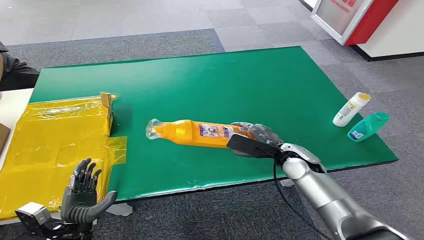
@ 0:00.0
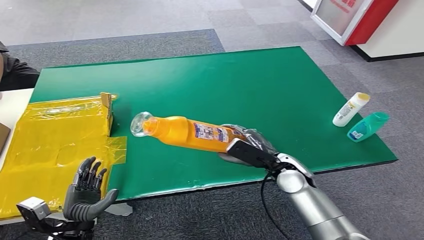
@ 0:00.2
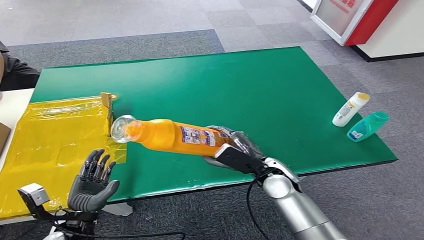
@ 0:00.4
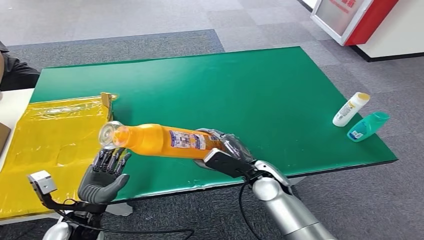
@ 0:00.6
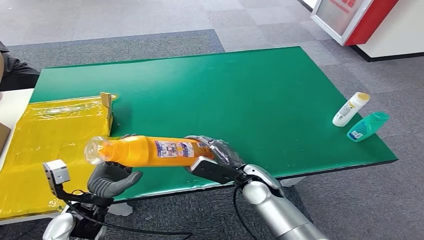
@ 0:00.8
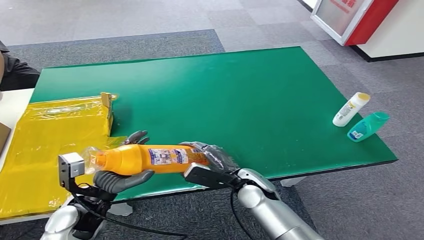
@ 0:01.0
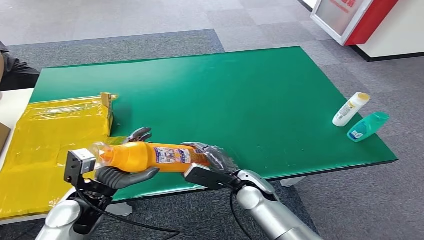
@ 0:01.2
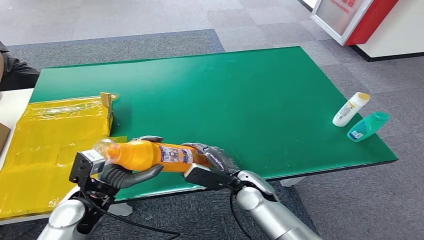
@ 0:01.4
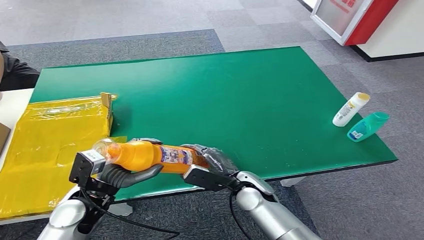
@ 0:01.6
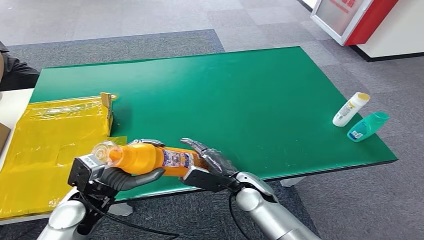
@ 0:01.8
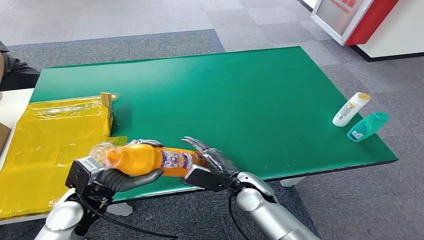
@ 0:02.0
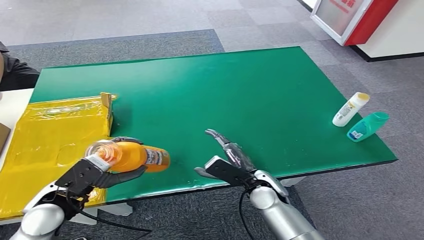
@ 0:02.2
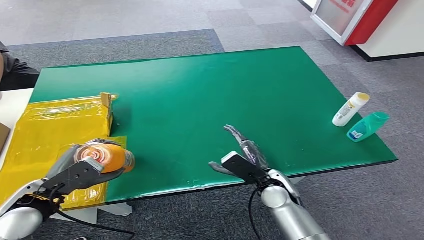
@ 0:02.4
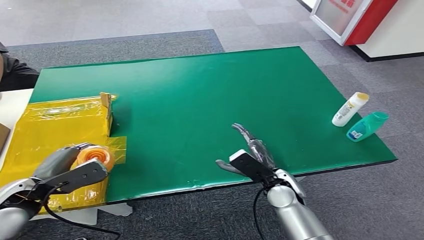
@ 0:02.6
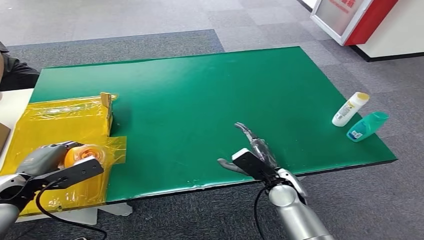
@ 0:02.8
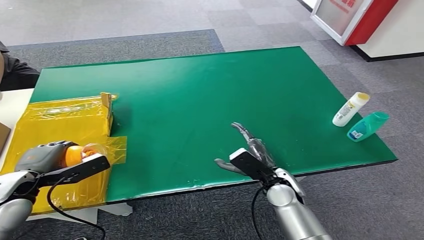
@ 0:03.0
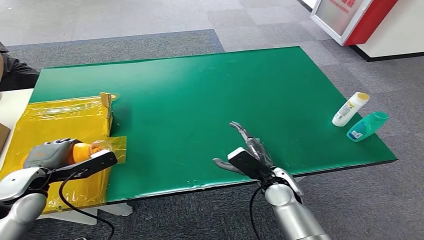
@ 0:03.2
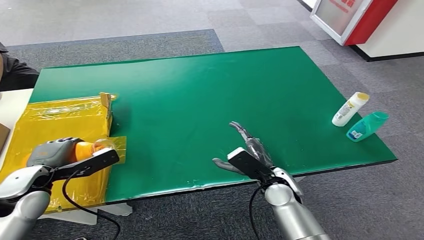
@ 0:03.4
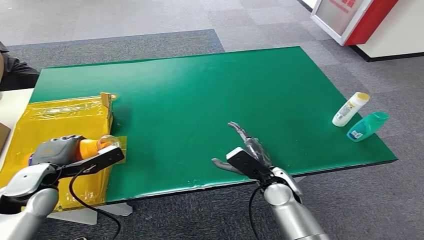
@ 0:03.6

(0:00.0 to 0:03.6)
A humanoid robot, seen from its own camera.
Step, 0:00.0 - 0:01.6: Pick up the bottle from the table.
Step, 0:01.8 - 0:03.6: Turn the bottle to the front side.
0:01.8 - 0:03.6: The left hand moves to the left, about 10 cm; the right hand heads to the right, covering about 5 cm.

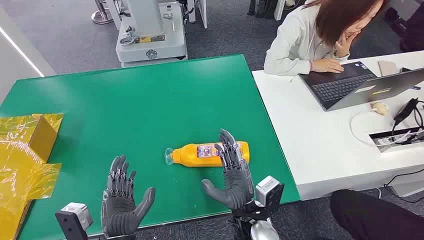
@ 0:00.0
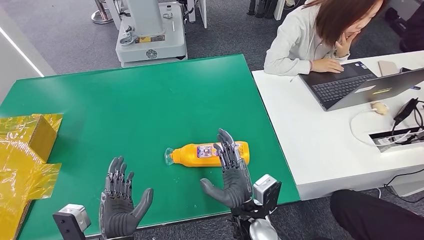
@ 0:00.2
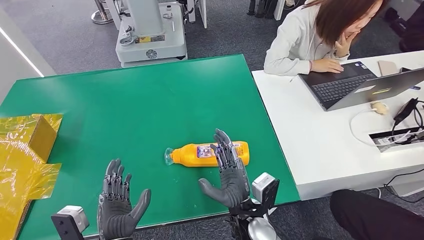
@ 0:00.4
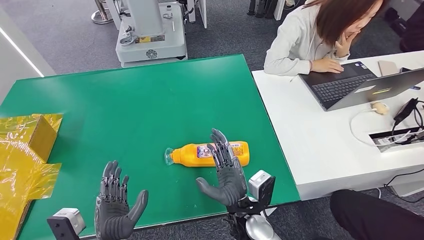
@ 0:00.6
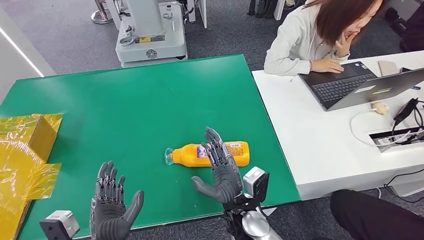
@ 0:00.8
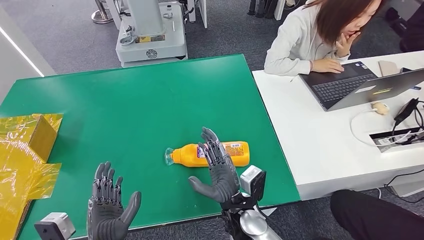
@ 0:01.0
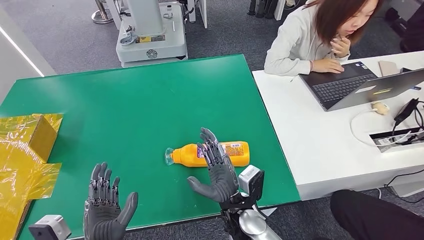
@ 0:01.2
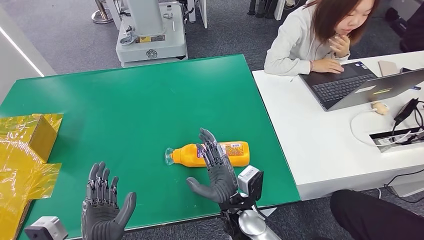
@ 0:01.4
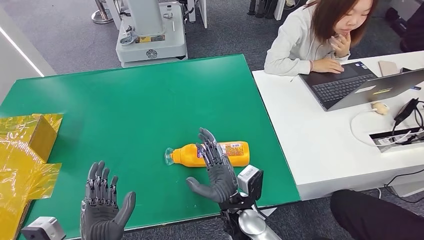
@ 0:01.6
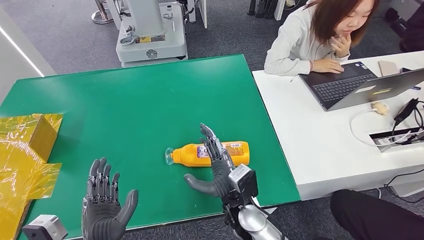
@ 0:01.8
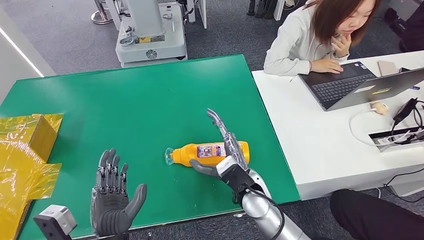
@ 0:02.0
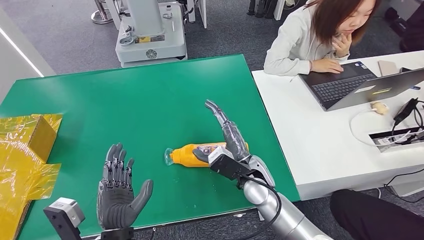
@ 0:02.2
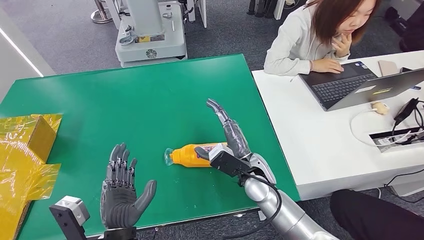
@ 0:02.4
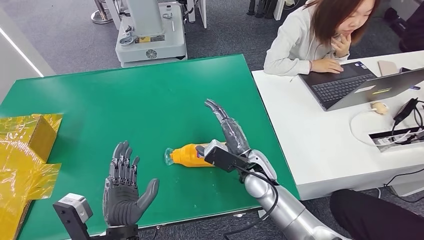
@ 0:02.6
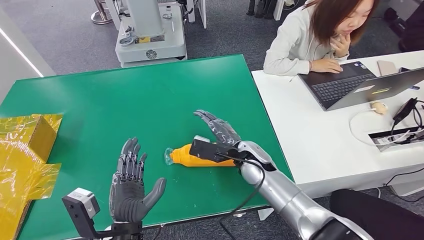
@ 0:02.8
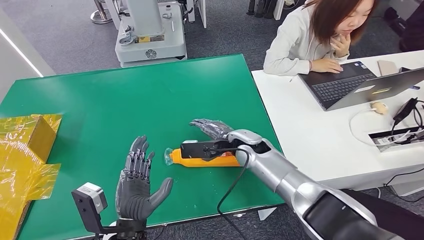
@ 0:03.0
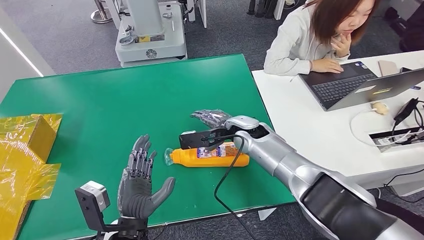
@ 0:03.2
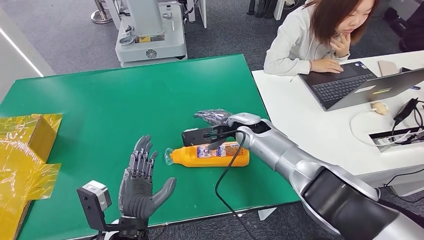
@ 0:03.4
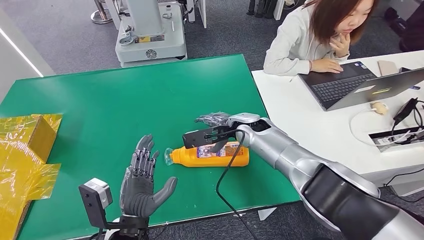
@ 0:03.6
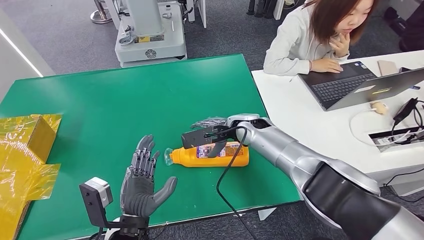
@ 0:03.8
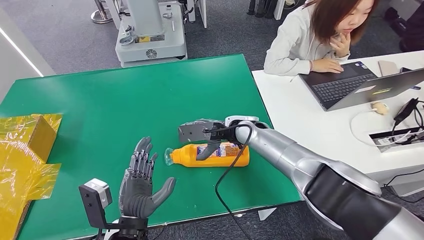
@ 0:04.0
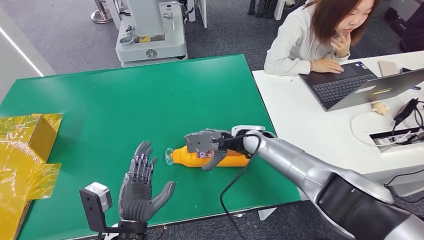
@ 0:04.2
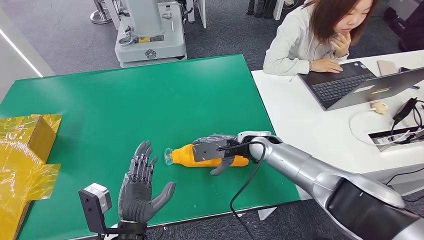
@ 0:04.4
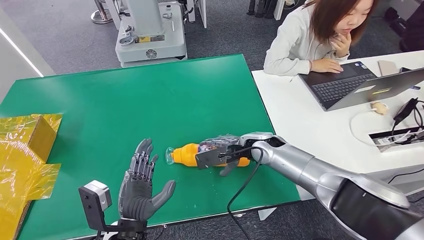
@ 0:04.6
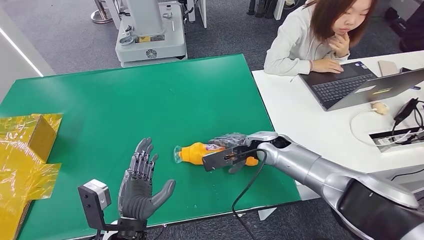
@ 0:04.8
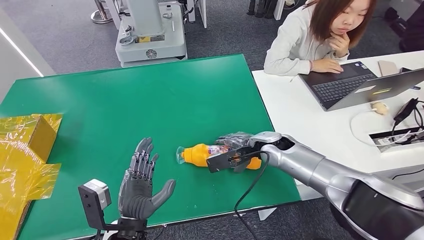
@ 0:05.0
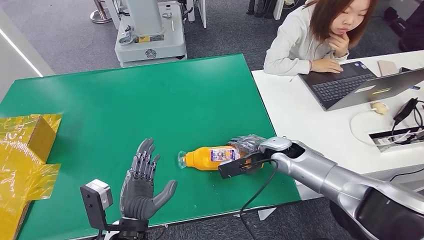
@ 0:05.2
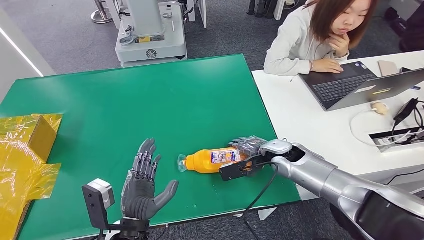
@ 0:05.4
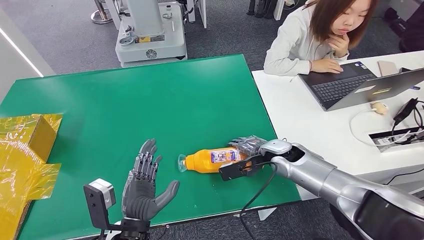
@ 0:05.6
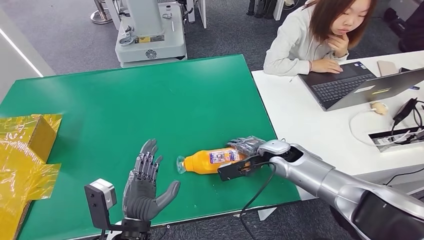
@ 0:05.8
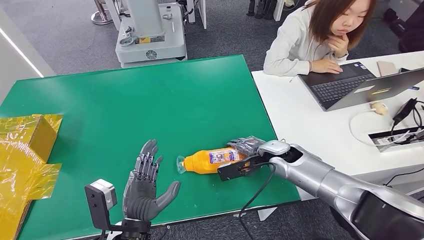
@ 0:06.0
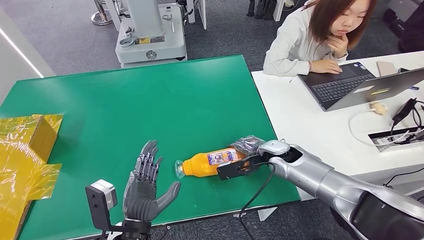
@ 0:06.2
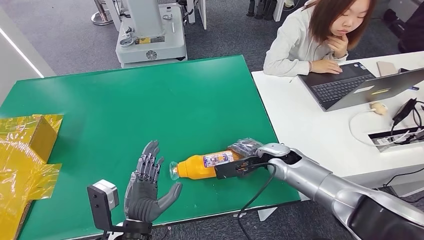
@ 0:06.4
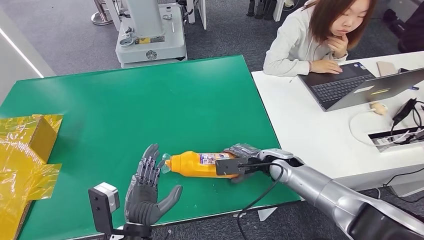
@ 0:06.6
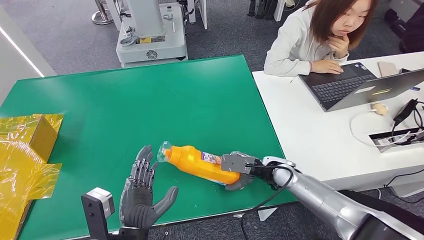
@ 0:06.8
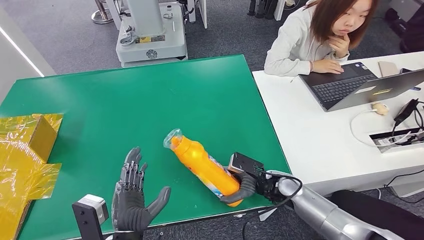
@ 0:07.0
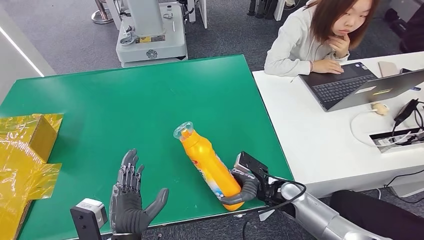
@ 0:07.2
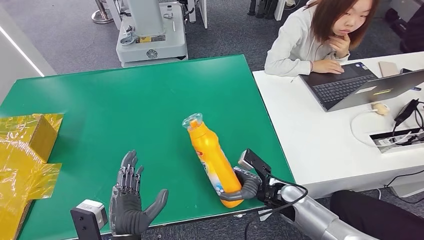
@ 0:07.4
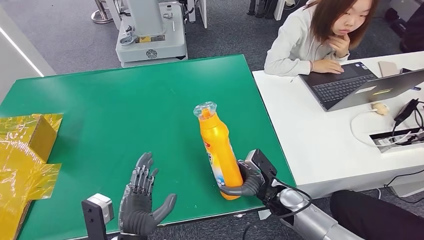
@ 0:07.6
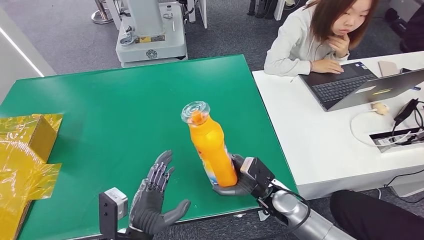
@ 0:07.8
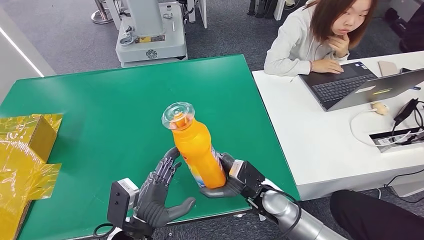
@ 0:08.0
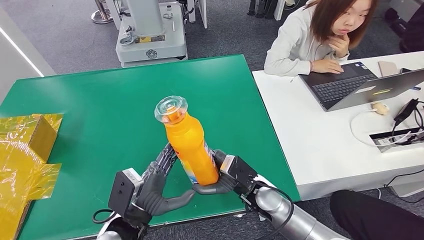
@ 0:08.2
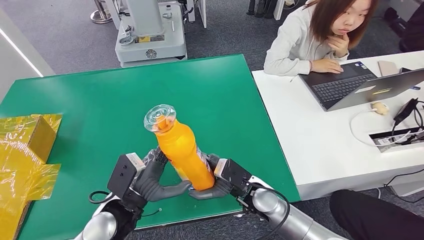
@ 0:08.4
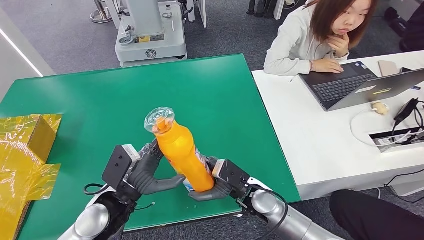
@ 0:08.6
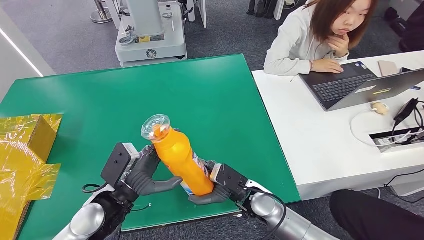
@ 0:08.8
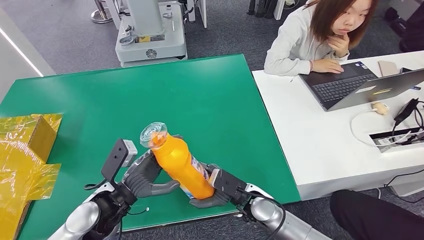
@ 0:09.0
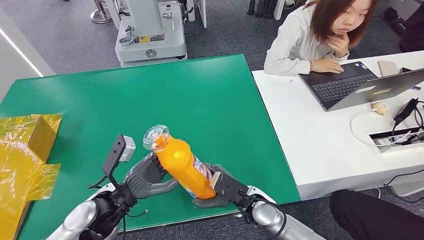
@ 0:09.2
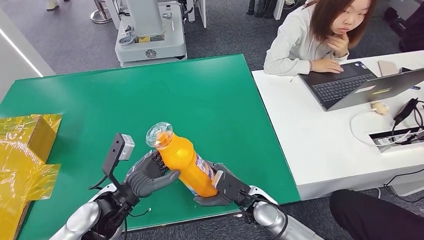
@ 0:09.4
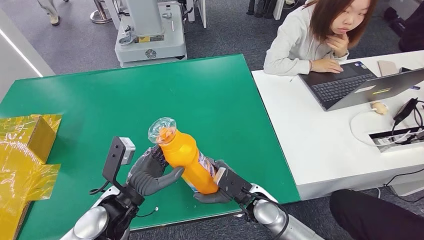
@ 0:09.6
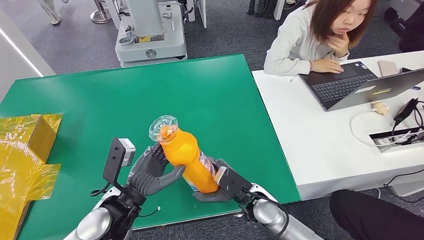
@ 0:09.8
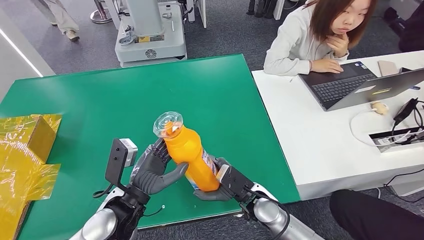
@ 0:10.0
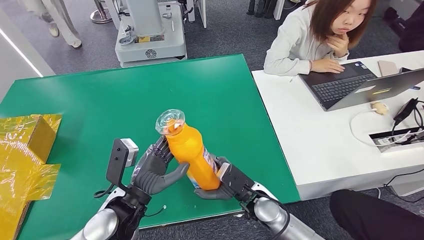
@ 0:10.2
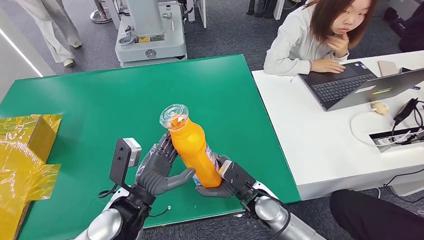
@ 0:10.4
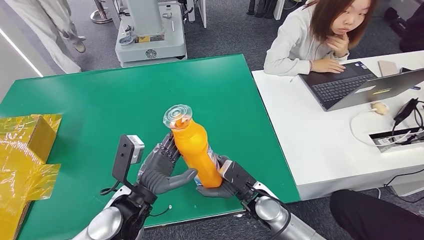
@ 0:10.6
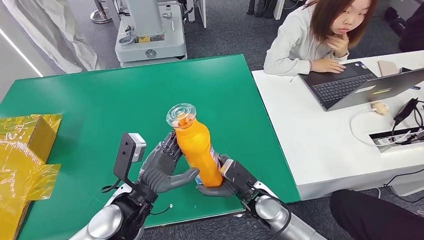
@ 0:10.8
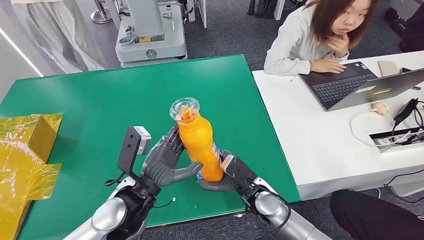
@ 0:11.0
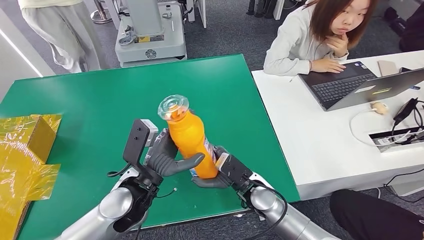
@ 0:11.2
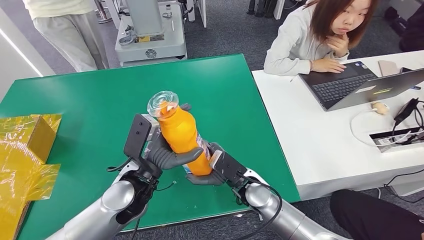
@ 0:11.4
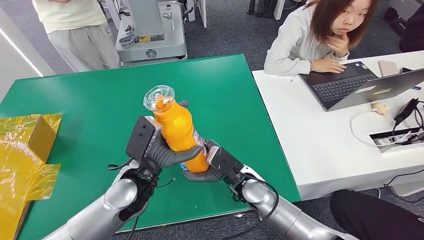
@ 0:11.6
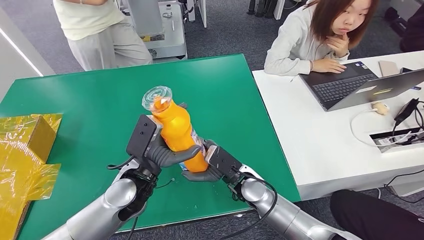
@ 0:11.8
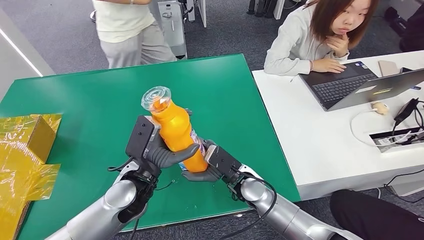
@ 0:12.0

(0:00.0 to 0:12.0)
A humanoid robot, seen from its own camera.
Step, 0:00.0 - 0:08.0: Pick up the bottle from the table.
0:01.6 - 0:03.0: The right hand goes some 15 cm forward. Meanwhile the left hand shifts about 5 cm forward.
0:04.4 - 0:06.0: The right hand heads to the right, covering roughly 5 cm.
0:06.0 - 0:07.6: The right hand moves backward and downward, approximately 15 cm.
0:07.6 - 0:09.0: The right hand is displaced to the left by about 10 cm; the left hand shifts approximately 15 cm forward, upward and to the left.
0:09.0 - 0:10.4: The left hand travels to the right by some 5 cm.
0:10.4 - 0:12.0: The right hand moves some 5 cm.

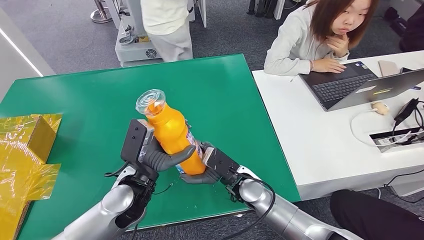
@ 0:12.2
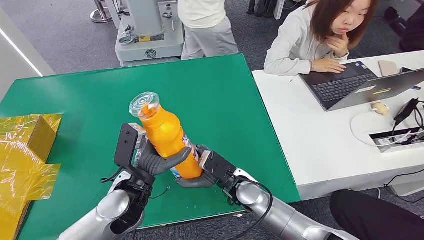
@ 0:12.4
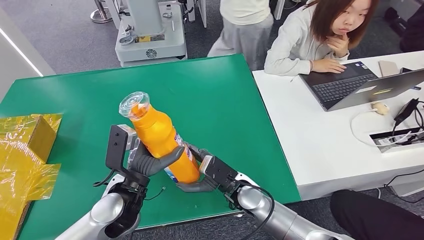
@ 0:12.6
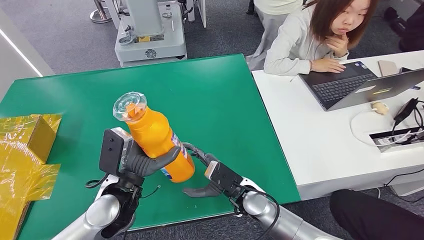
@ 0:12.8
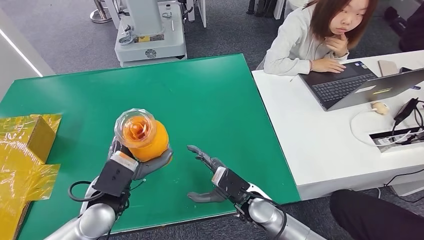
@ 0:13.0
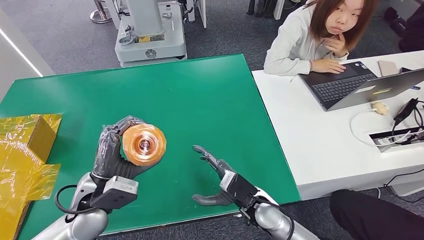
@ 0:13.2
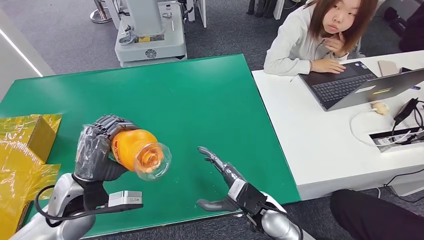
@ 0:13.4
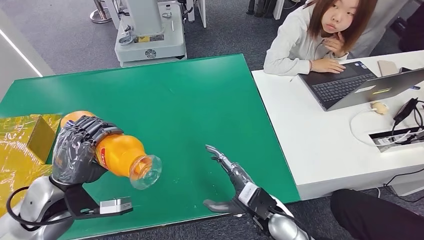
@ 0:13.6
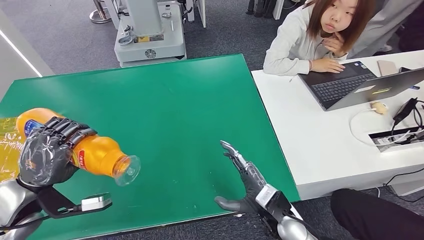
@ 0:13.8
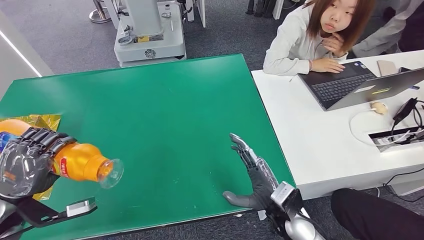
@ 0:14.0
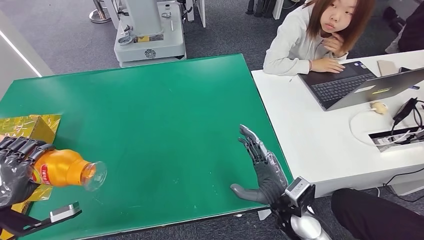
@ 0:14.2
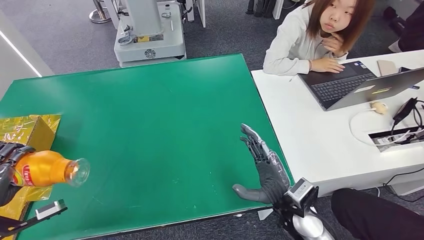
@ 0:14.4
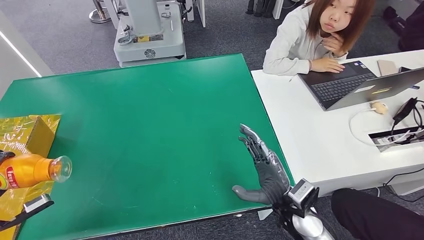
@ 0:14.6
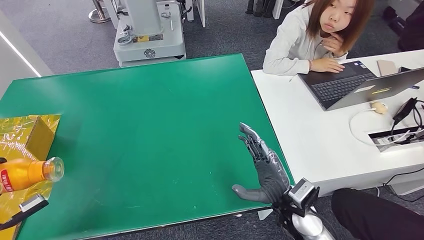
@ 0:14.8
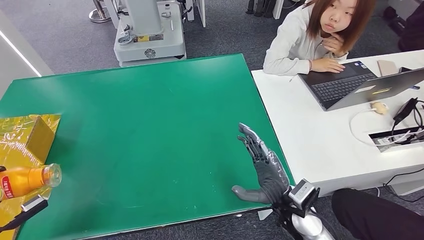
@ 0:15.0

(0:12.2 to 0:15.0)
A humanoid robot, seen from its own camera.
0:13.6 - 0:15.0: The right hand moves about 5 cm. The left hand shifts about 30 cm to the left and backward.
